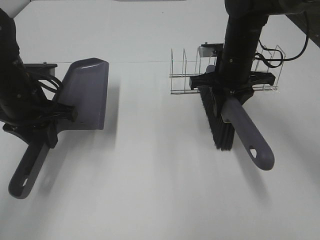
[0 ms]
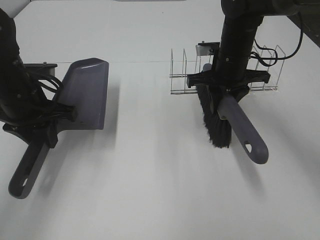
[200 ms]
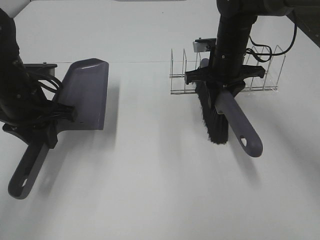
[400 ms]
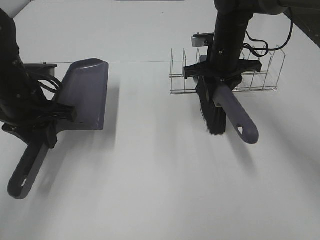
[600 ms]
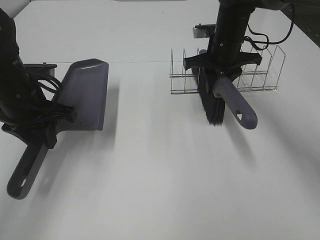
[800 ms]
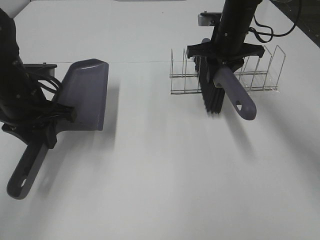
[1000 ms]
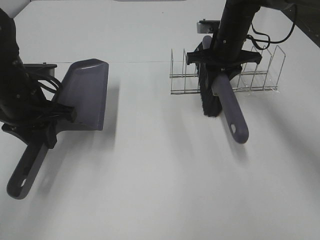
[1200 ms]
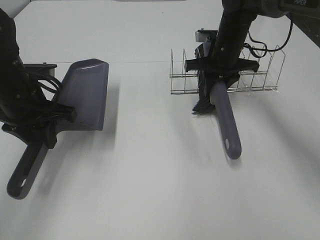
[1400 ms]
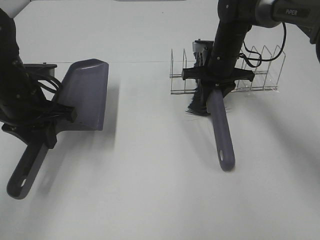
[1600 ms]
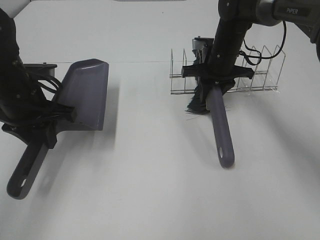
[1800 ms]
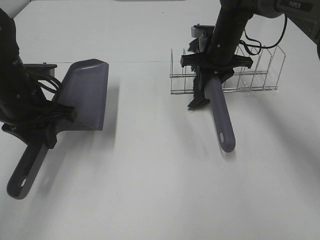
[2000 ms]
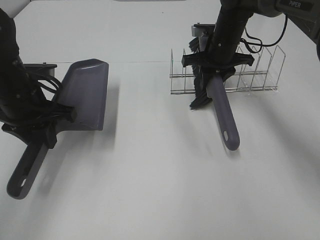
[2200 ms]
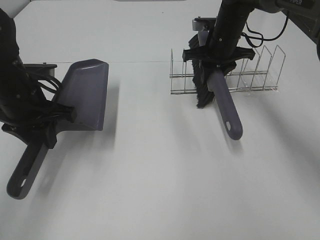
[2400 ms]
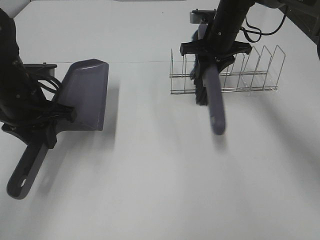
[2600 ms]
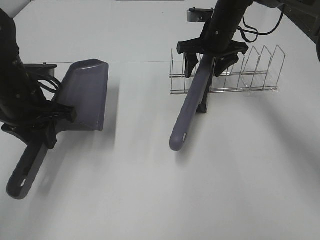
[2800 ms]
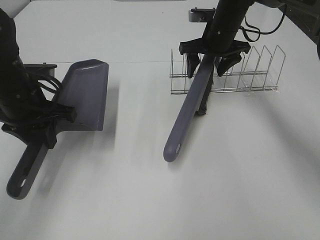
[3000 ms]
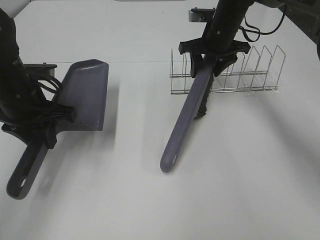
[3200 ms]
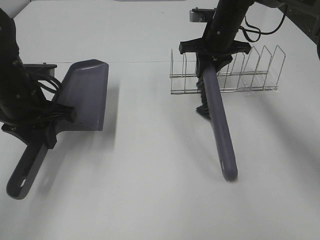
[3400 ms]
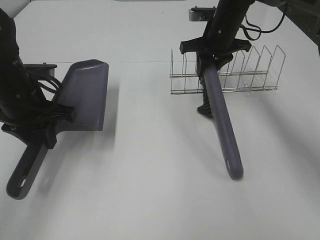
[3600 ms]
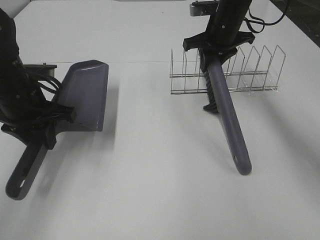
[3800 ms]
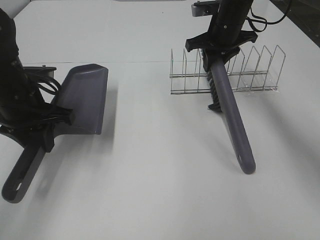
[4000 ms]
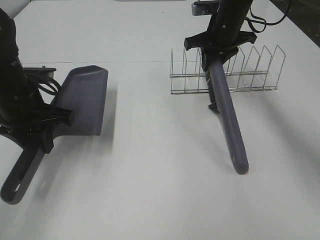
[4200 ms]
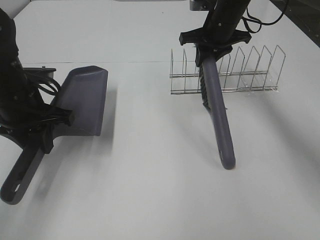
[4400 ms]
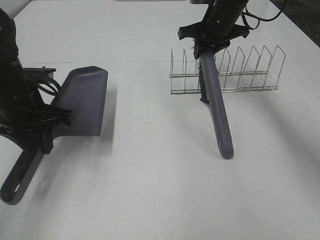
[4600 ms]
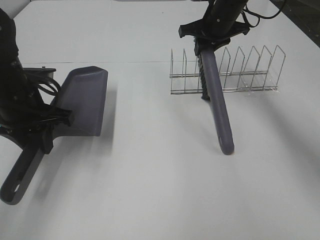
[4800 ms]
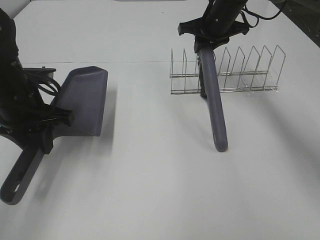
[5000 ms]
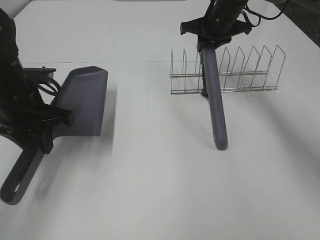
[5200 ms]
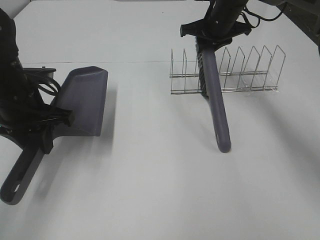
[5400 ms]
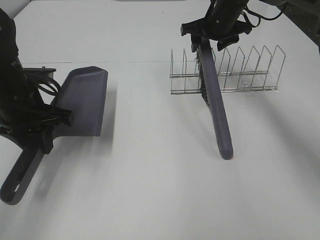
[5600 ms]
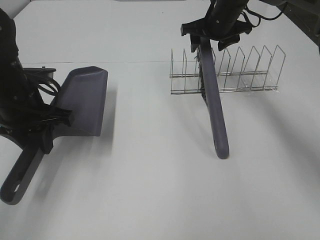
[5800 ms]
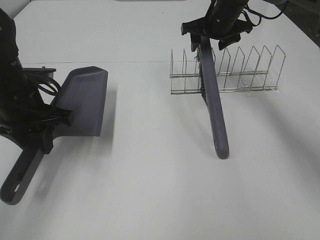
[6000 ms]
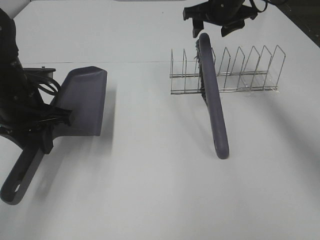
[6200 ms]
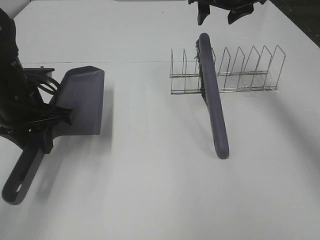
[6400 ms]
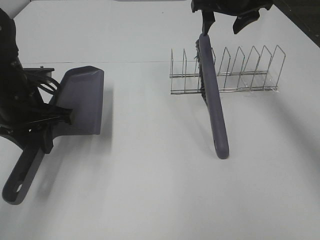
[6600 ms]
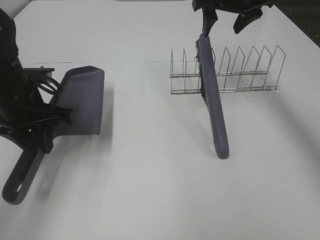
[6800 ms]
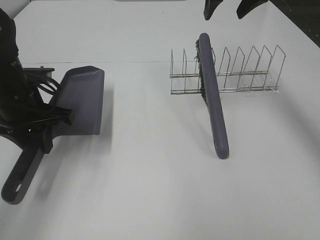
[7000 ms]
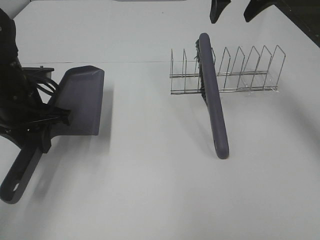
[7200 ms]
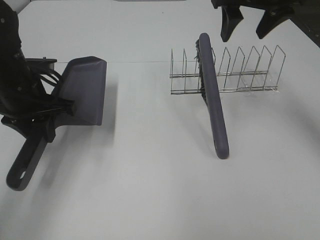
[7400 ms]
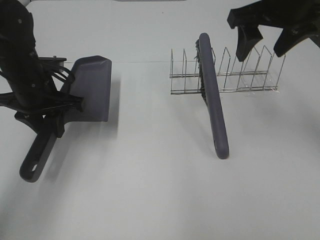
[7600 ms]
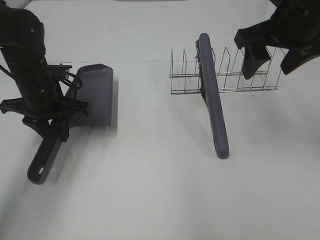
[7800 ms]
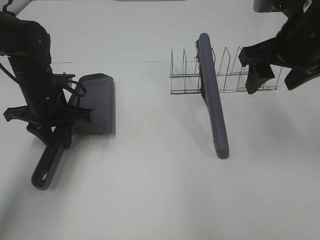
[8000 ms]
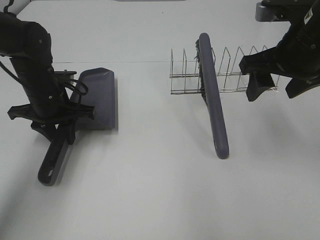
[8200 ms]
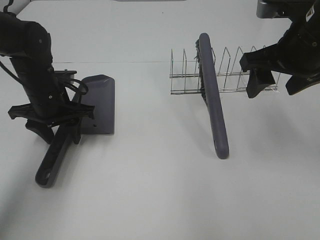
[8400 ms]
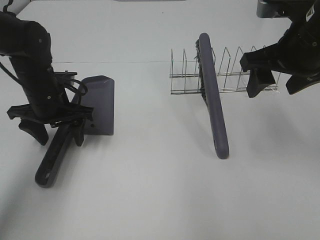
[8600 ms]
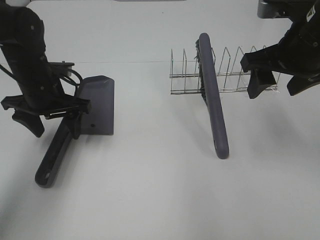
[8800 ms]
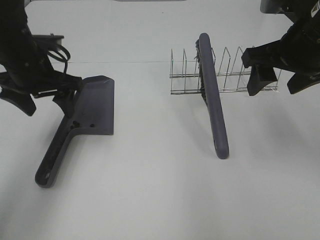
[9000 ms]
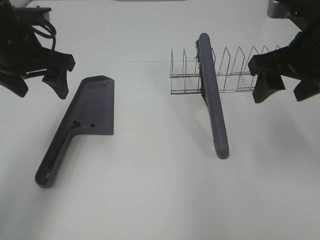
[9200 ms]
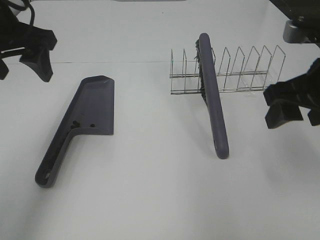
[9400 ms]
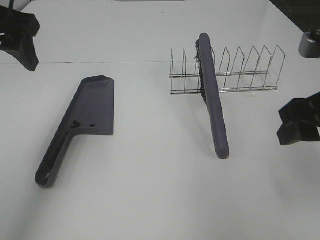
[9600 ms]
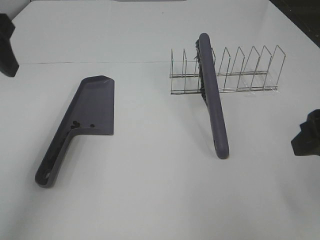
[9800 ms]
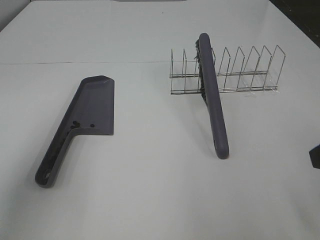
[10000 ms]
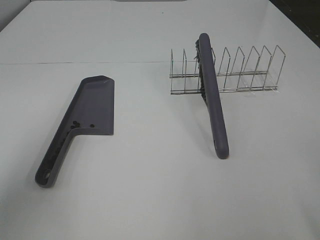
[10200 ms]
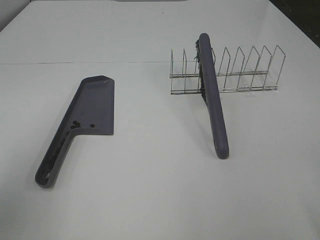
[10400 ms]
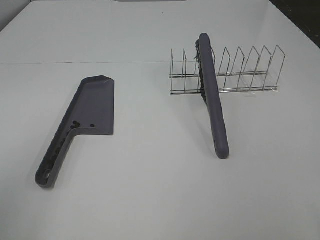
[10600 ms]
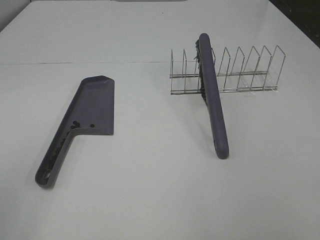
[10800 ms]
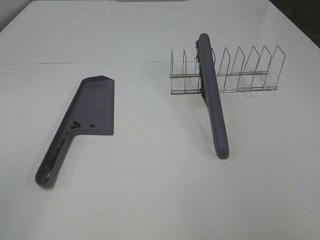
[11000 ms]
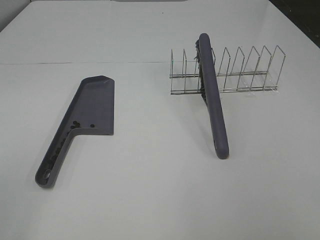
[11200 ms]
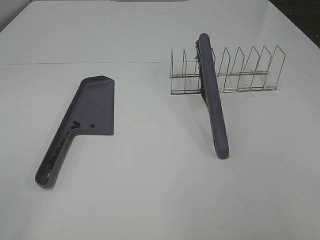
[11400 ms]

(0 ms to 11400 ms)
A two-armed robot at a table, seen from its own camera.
Task of the whole recording: Sweep Coffee Bean.
Step, 0 ms - 6000 ms: Right hand:place the broom on the rack.
Step, 6200 ms - 8600 ms: Left hand:place the dustpan on the table.
0 ms - 1400 ms: The right gripper heads forward, covering approximately 5 cm.
1400 ms - 2800 ms: The right gripper opens its fingers.
2800 ms - 4200 ms: The right gripper closes.
4200 ms - 5600 ms: The right gripper opens.
5600 ms - 7200 ms: The right gripper moves upward and backward, approximately 15 cm.
7200 ms - 8600 ms: The left gripper moves forward, about 5 cm, and opens up; the right gripper shifts roughly 15 cm backward and downward.
8600 ms - 10000 ms: The right gripper goes some 15 cm backward; the left gripper moves upward and backward, approximately 25 cm.
10000 ms - 11400 ms: The left gripper travels backward by roughly 20 cm.

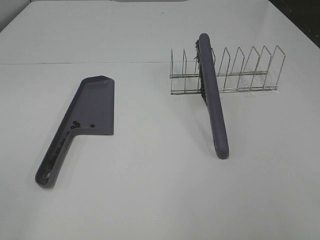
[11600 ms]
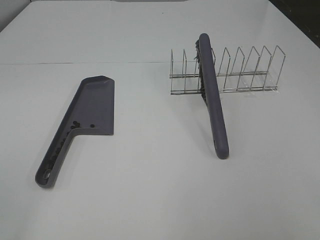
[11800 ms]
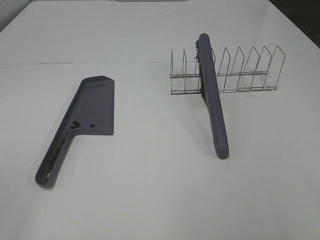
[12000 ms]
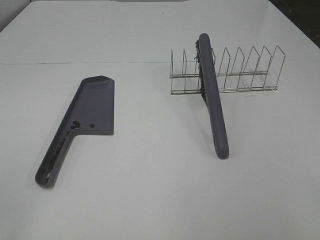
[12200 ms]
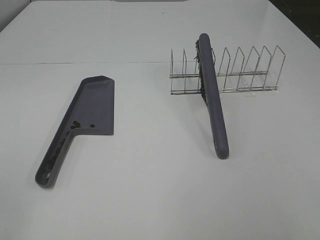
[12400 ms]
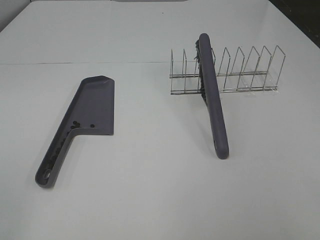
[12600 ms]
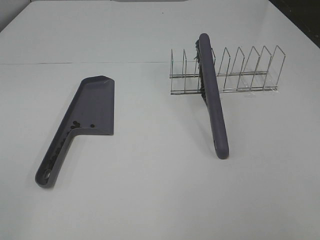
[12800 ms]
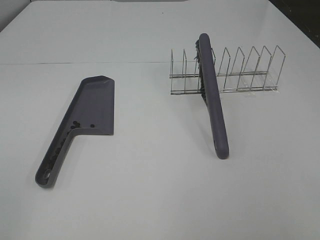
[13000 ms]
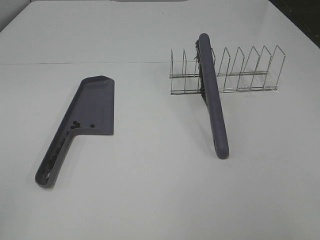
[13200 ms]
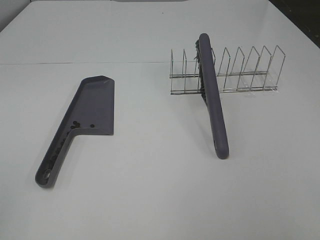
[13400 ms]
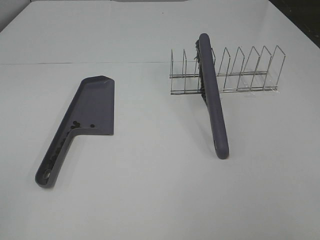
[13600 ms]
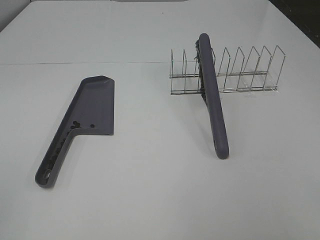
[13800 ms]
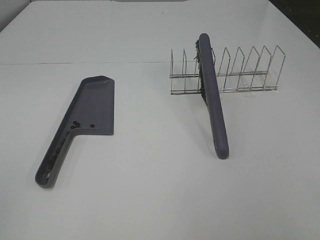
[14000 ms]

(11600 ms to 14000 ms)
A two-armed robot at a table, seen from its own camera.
Task of the whole recording: Sweep Coffee Bean.
11600 ms - 12800 ms: Both grippers stay put.
